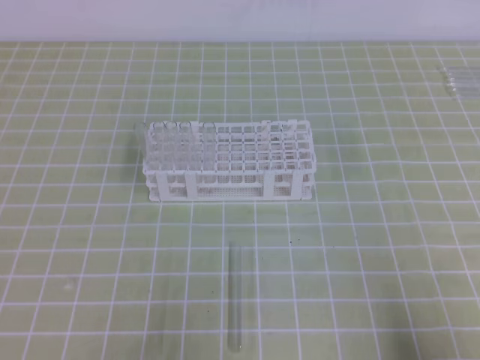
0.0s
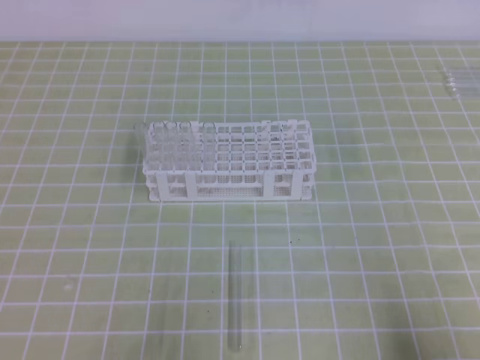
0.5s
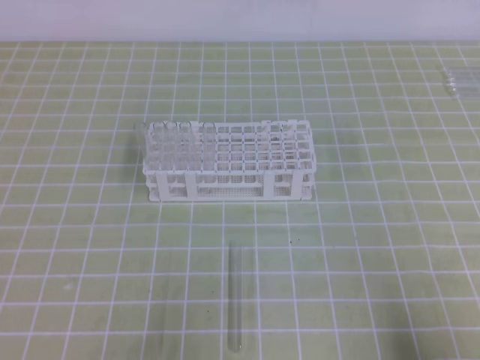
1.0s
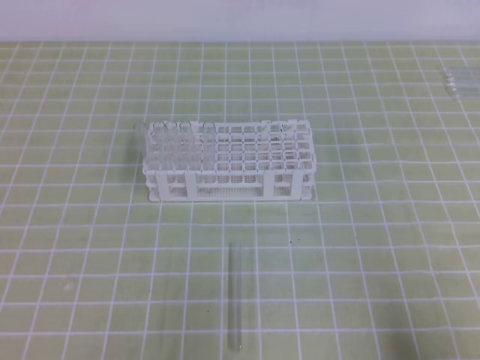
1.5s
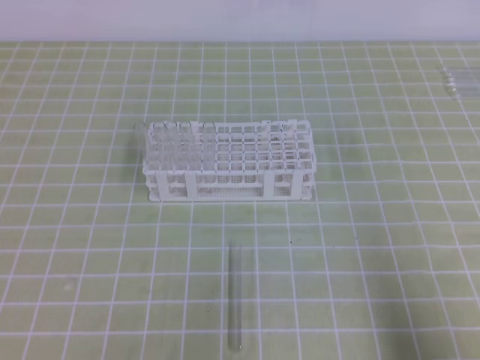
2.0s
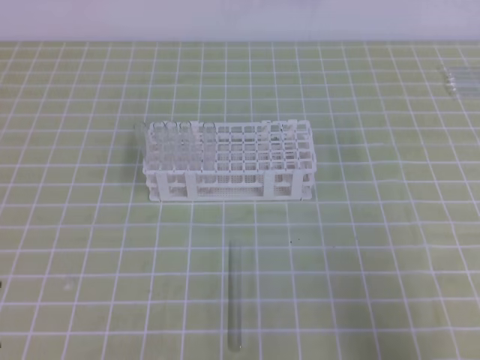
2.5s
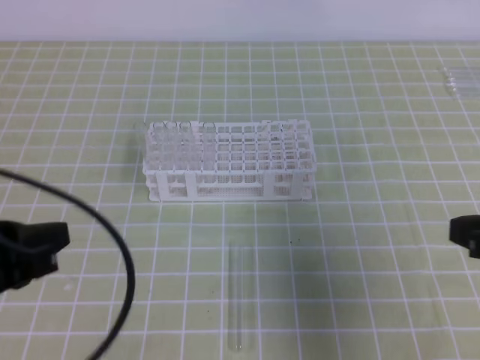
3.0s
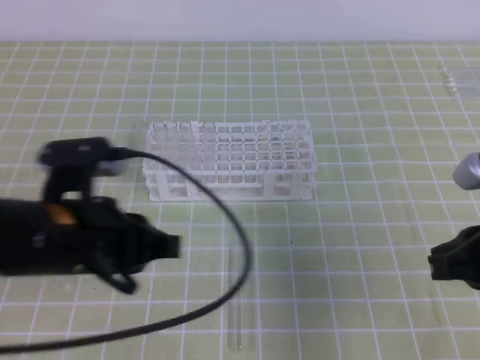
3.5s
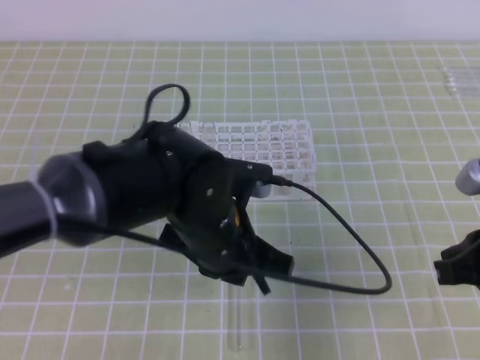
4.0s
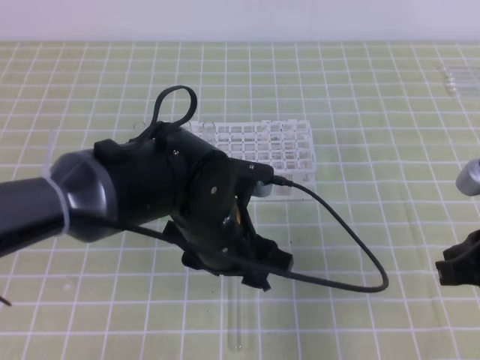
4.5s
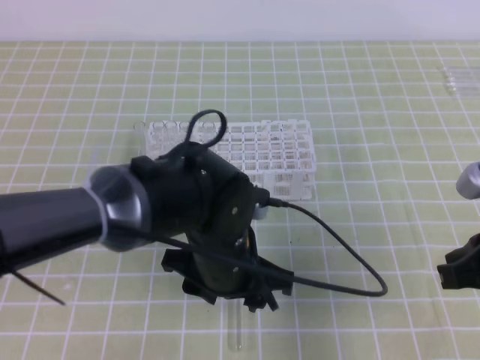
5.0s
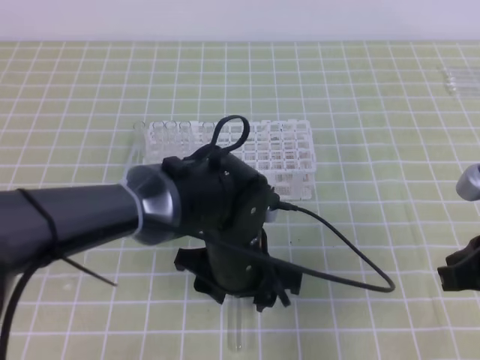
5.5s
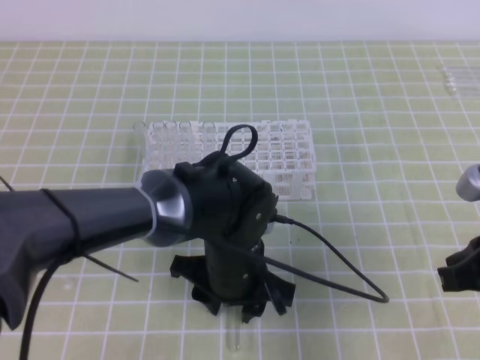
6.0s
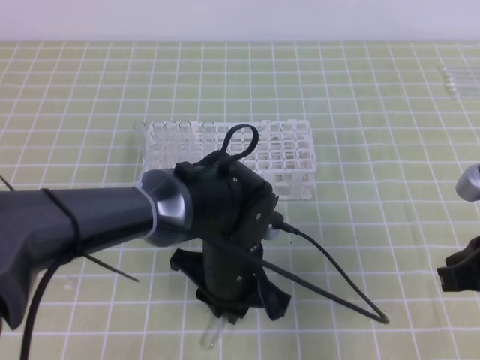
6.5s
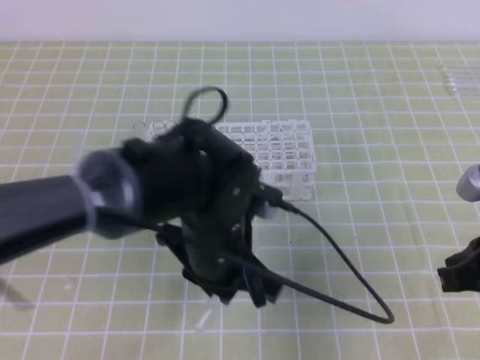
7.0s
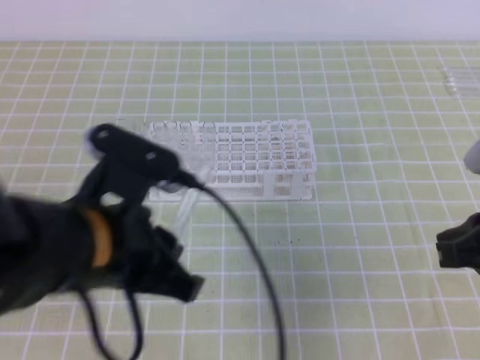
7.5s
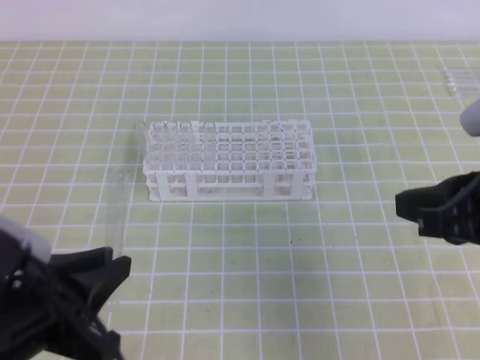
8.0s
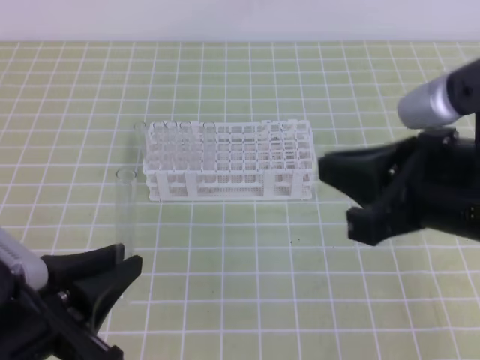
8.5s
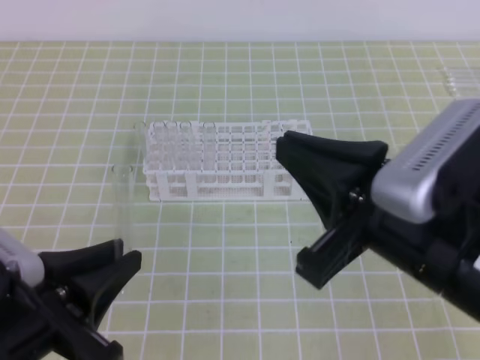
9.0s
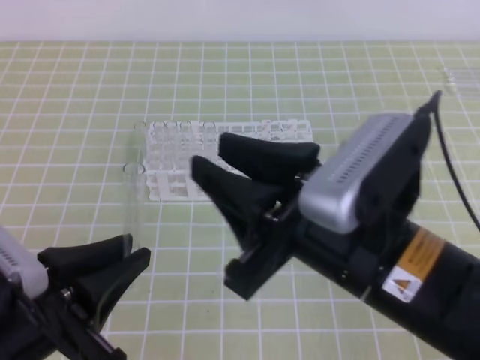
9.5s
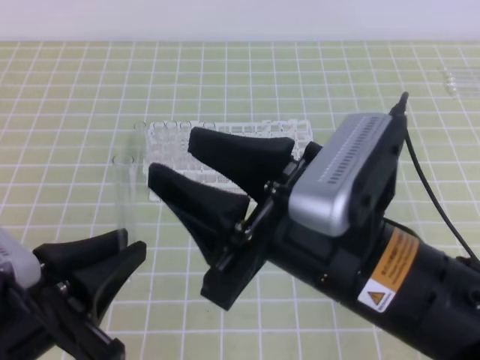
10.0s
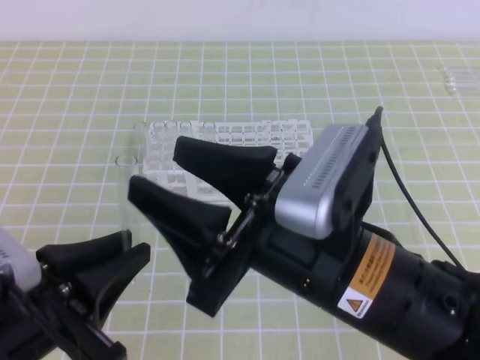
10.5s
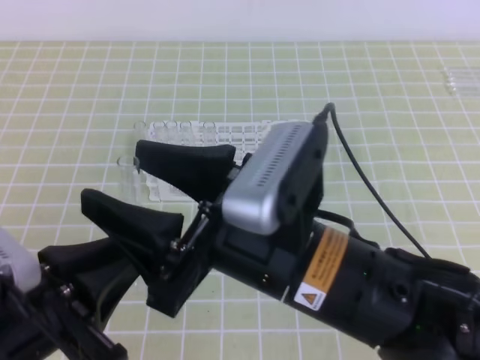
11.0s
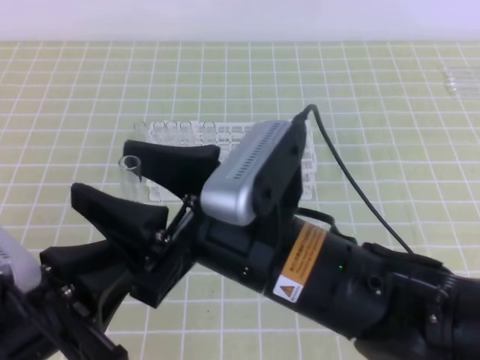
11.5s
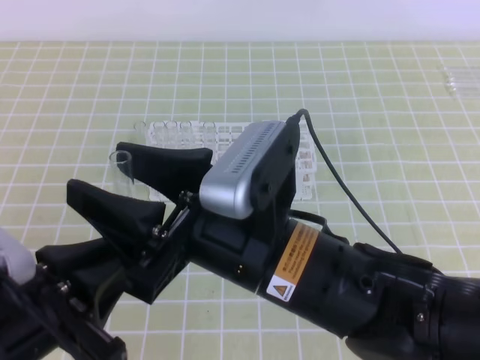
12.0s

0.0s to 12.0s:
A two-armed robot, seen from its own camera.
2.0s to 4.0s: The left gripper heads to the right and forward, covering roughly 30 cm; the right gripper is displaced forward, to the left and upward by approximately 15 cm.
4.0s to 6.0s: The left gripper moves downward, some 5 cm, and opens its fingers.
6.0s to 8.0s: The right gripper shifts by about 5 cm. Meanwhile the left gripper is displaced to the left, backward and upward by about 25 cm, and closes.
8.0s to 10.0s: The right gripper moves to the left, about 15 cm, and opens up.
10.0s to 12.0s: The right gripper shifts approximately 5 cm to the left.

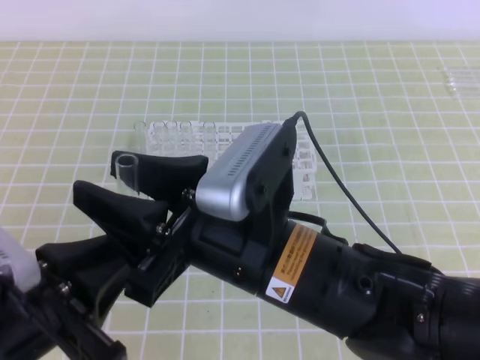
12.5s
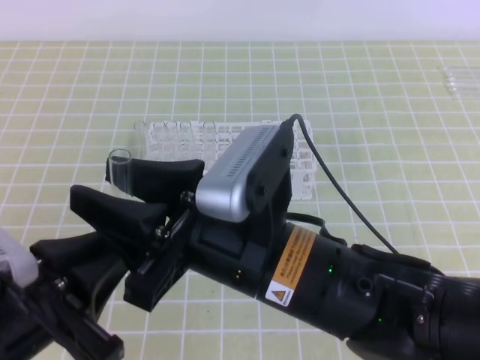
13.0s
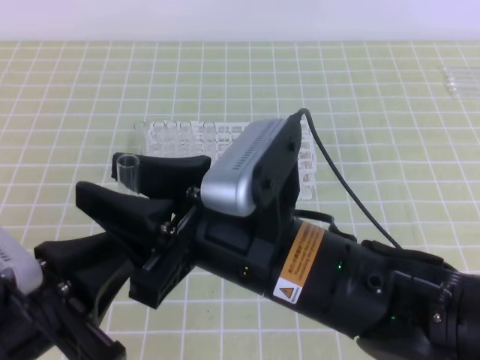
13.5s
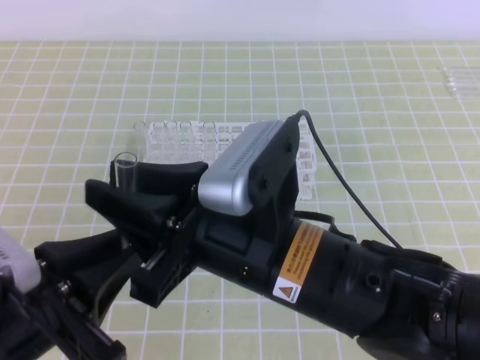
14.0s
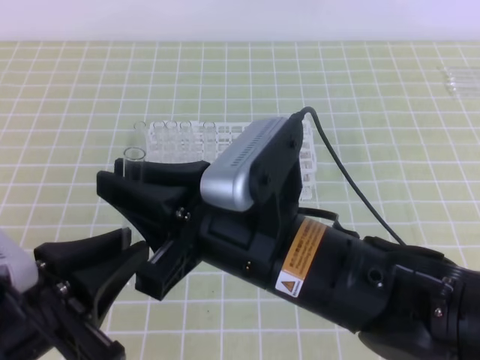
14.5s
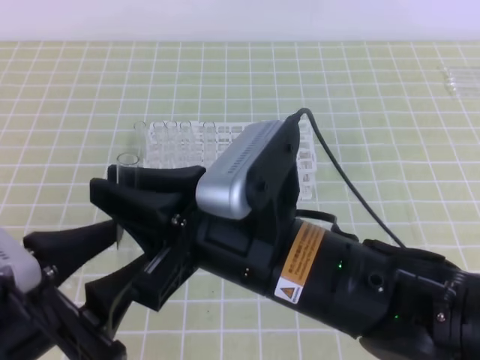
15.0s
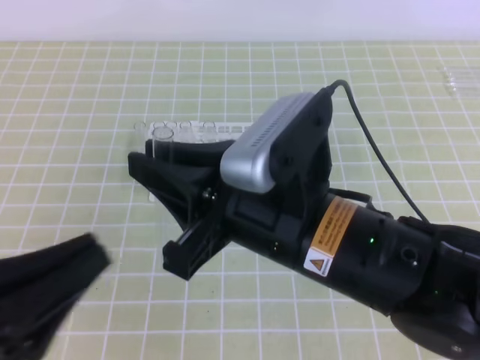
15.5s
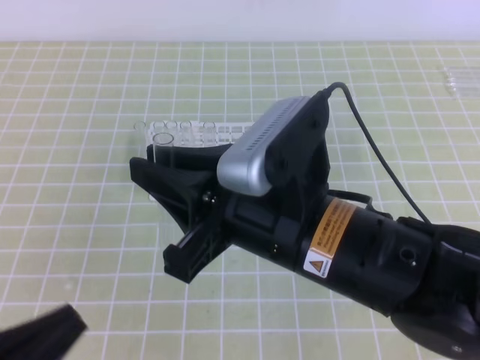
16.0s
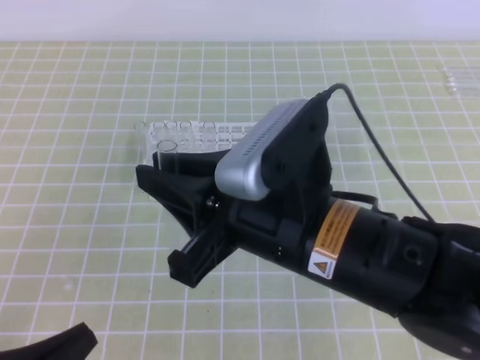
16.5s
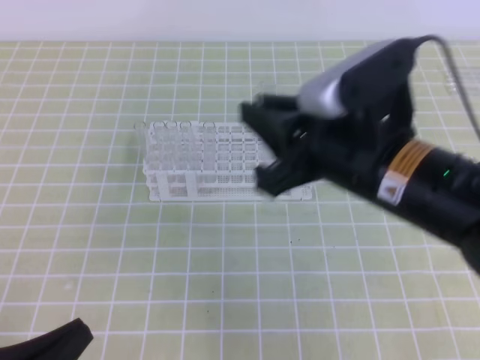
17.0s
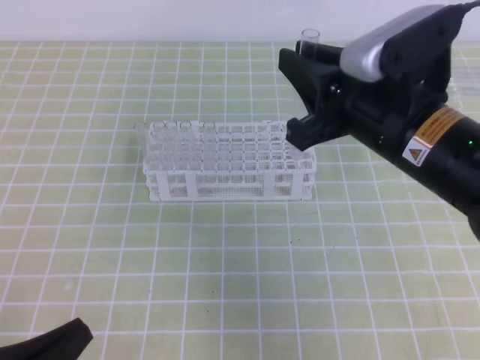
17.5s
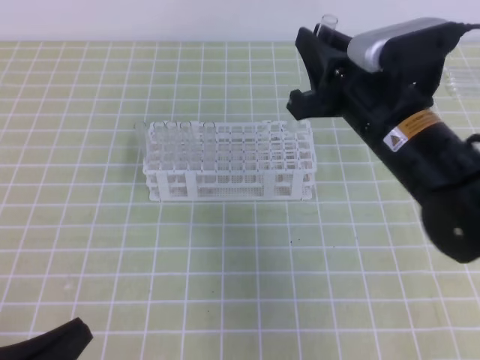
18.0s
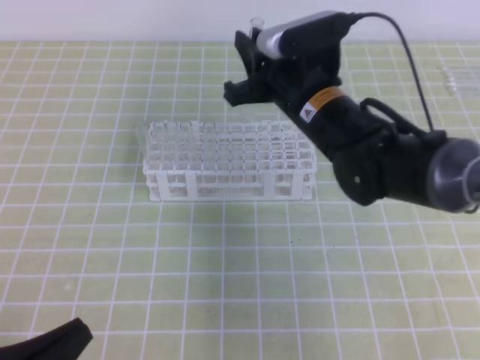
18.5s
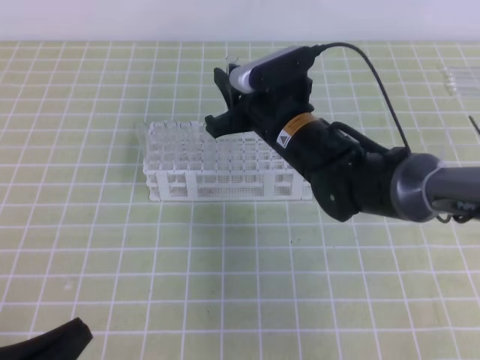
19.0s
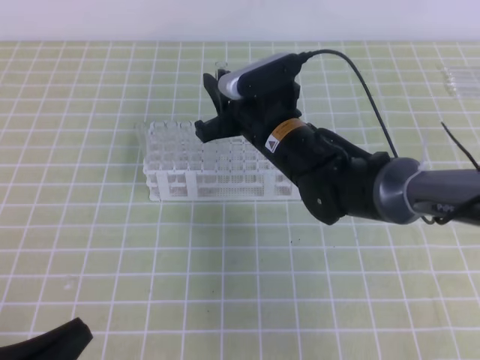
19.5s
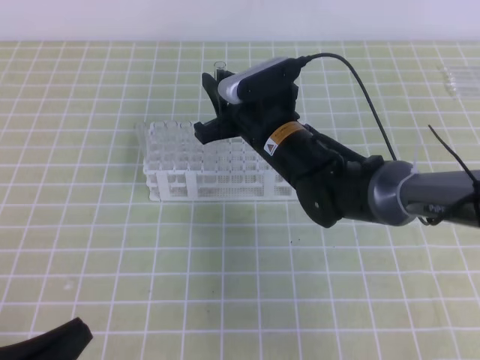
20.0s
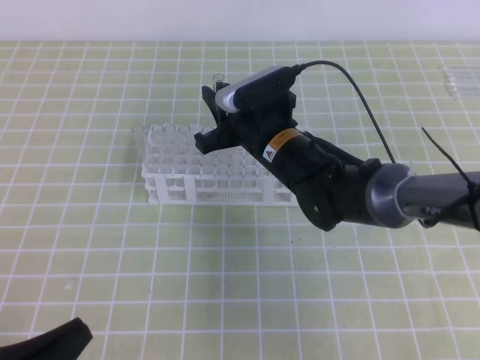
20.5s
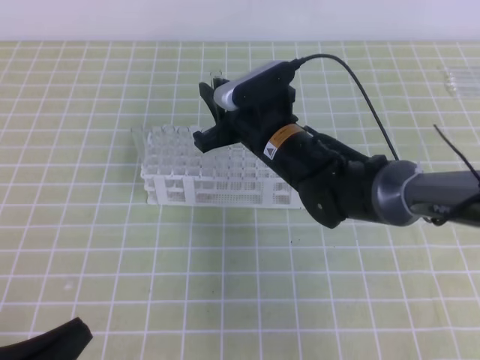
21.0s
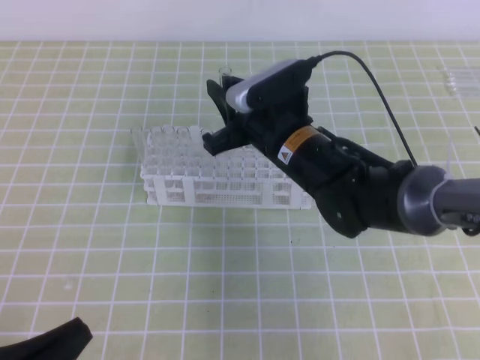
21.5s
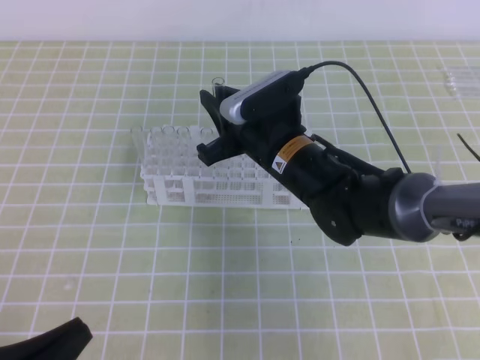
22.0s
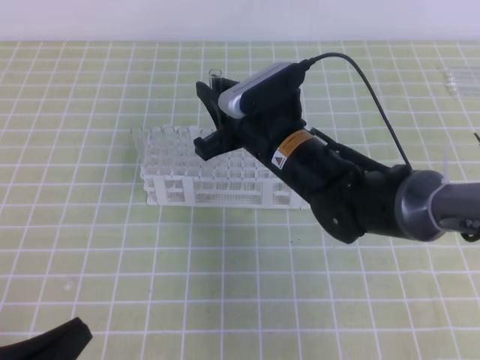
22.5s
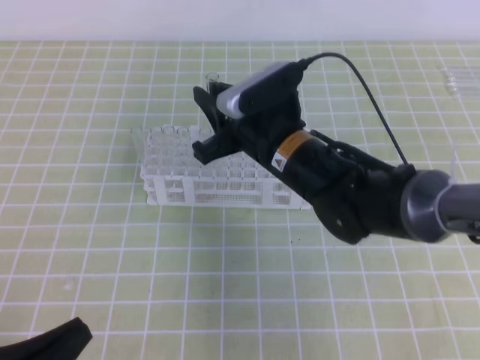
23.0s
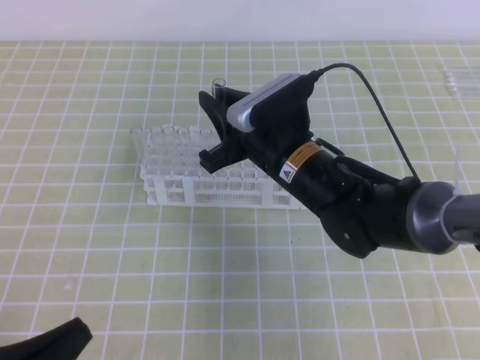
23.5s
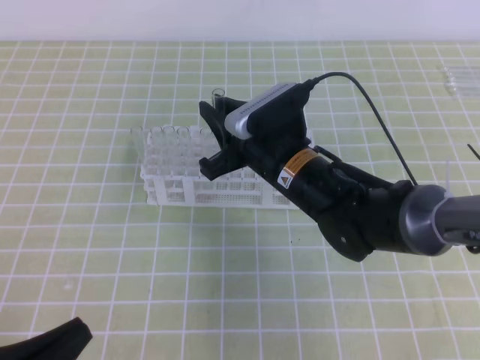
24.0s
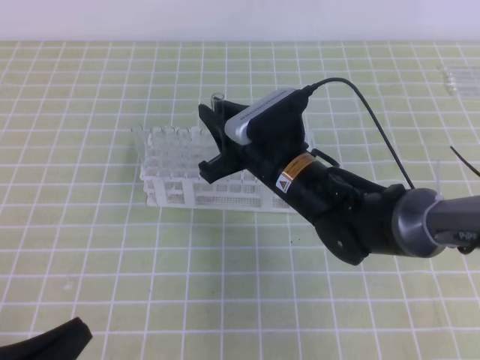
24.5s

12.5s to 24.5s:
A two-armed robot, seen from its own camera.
12.5s to 14.5s: The right gripper closes.
14.5s to 16.5s: The left gripper is displaced downward and to the left by roughly 10 cm, and opens and closes again.
16.5s to 18.5s: The right gripper travels forward by approximately 20 cm.
18.5s to 20.5s: The right gripper heads downward, covering approximately 5 cm.
20.5s to 24.5s: The grippers move only a little.

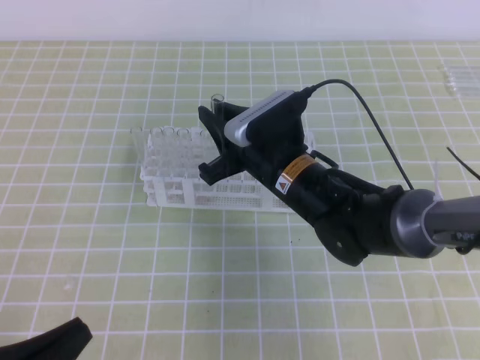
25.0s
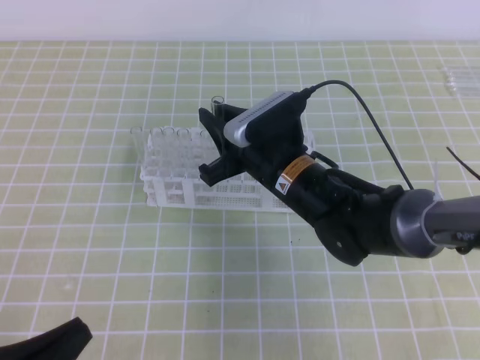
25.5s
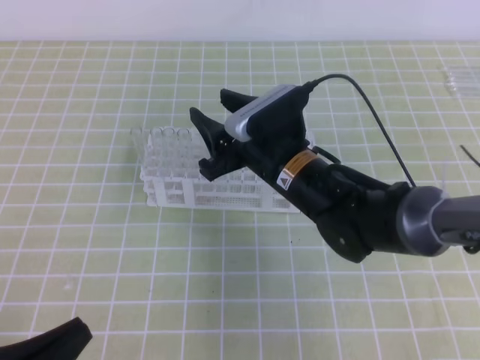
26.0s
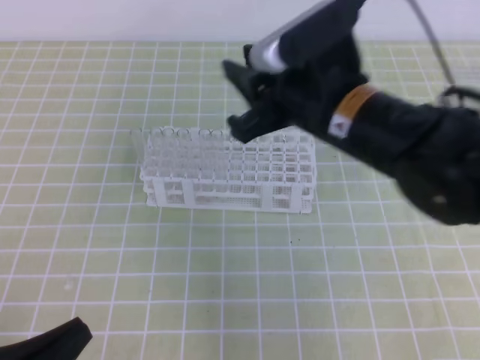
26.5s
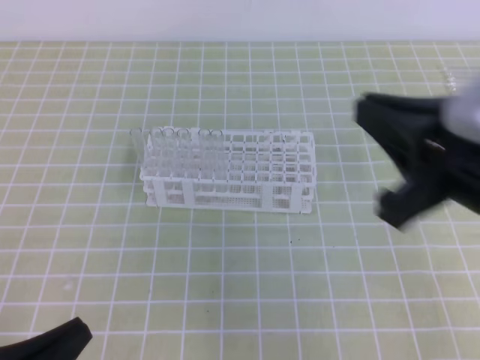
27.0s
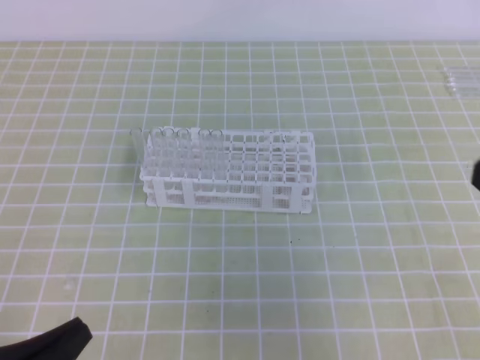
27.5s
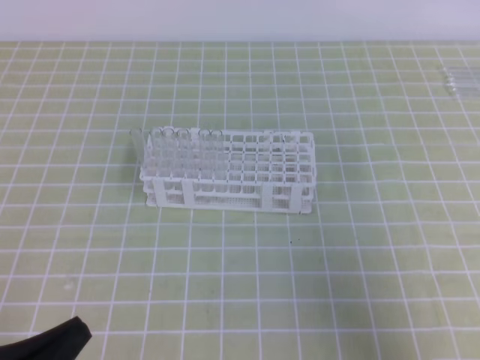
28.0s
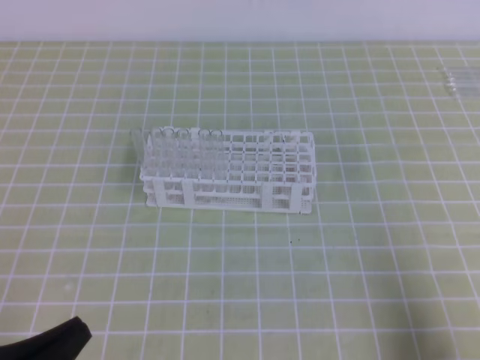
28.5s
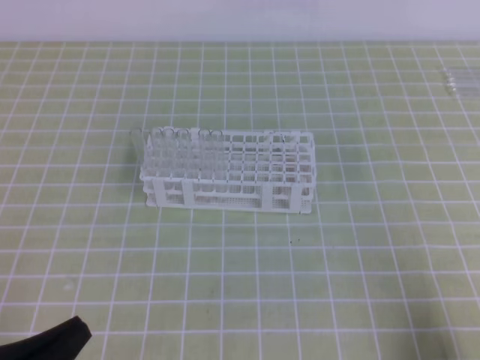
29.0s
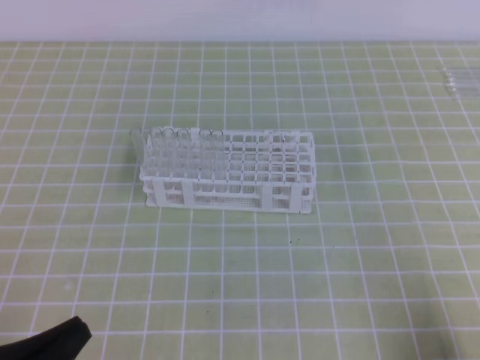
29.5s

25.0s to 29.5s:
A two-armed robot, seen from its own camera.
25.0s to 27.0s: The right gripper shifts roughly 25 cm upward, backward and to the right, and opens, then closes again.
27.0s to 29.5s: The right gripper is displaced downward, to the right and backward by approximately 25 cm.
